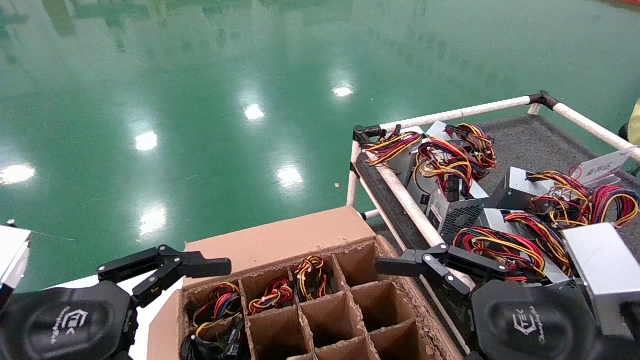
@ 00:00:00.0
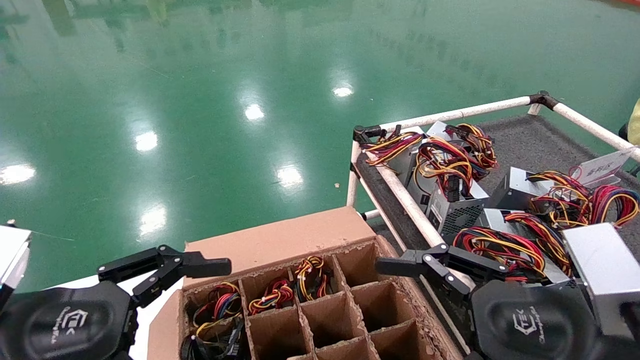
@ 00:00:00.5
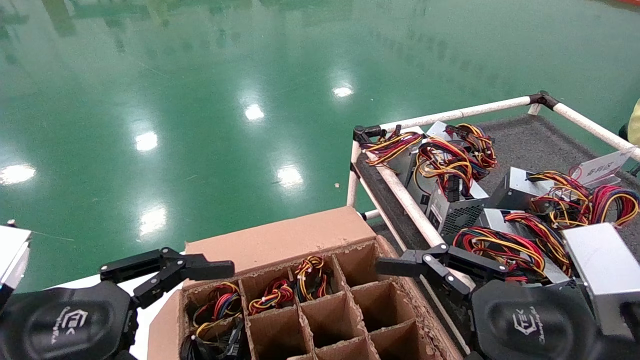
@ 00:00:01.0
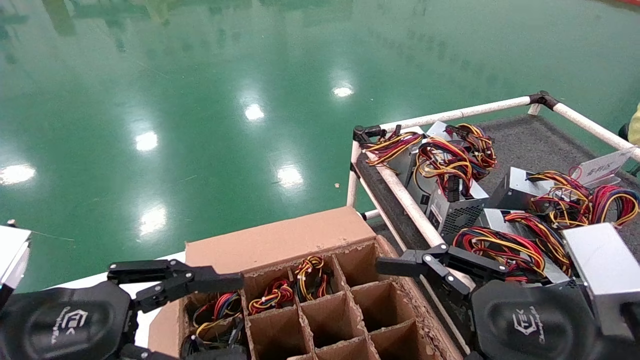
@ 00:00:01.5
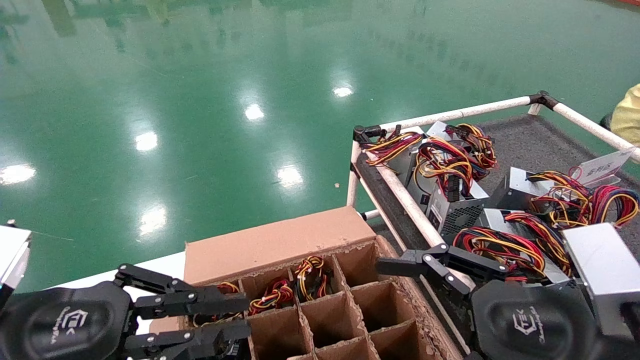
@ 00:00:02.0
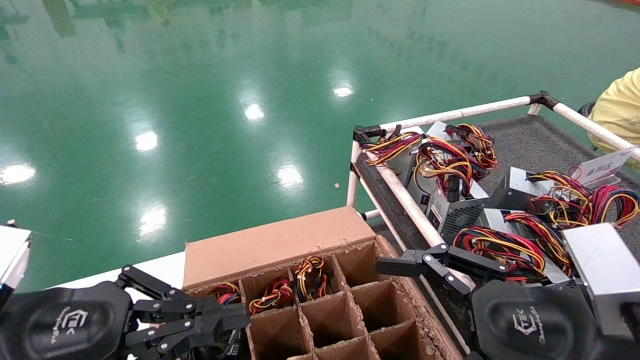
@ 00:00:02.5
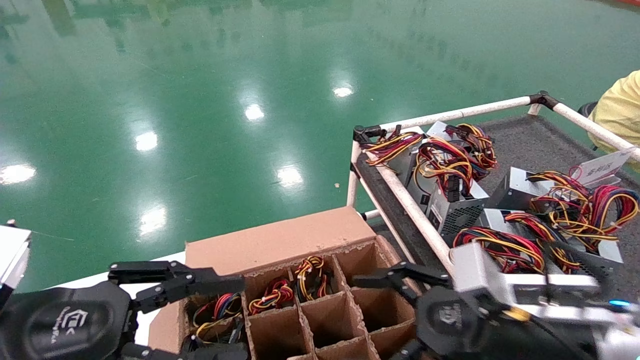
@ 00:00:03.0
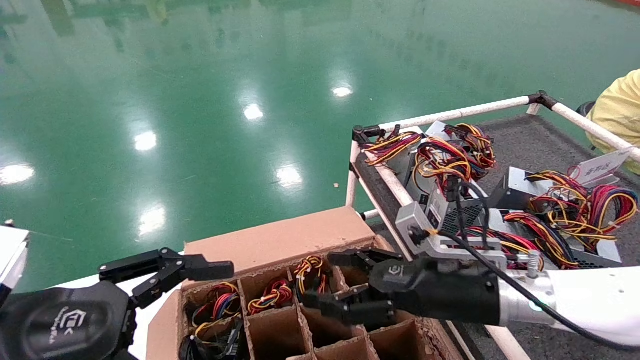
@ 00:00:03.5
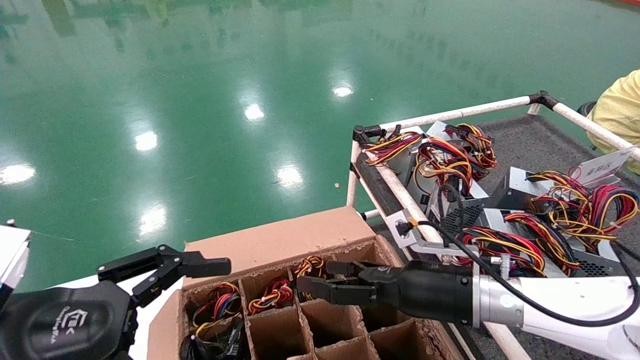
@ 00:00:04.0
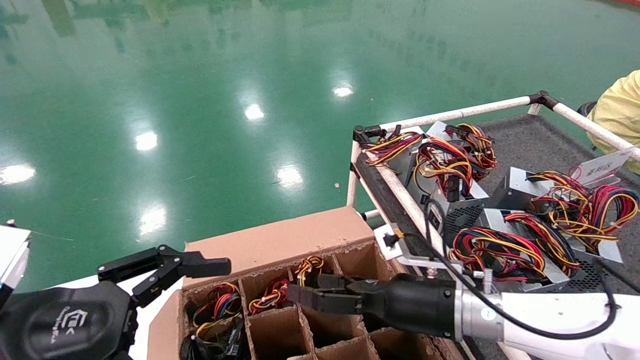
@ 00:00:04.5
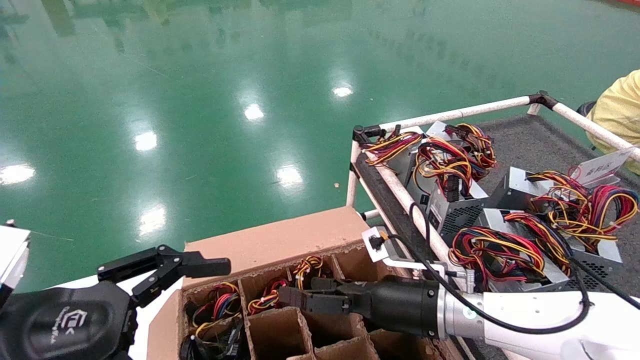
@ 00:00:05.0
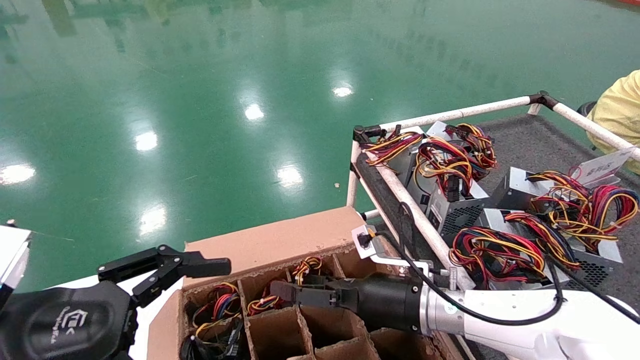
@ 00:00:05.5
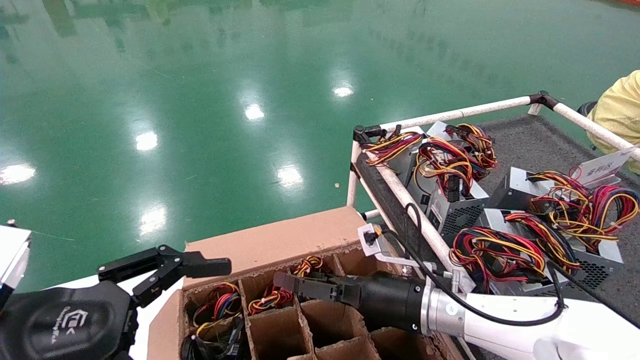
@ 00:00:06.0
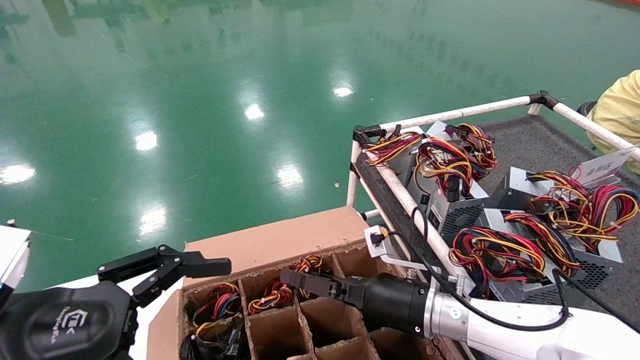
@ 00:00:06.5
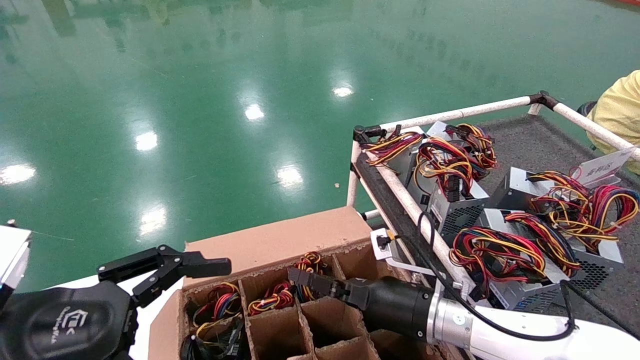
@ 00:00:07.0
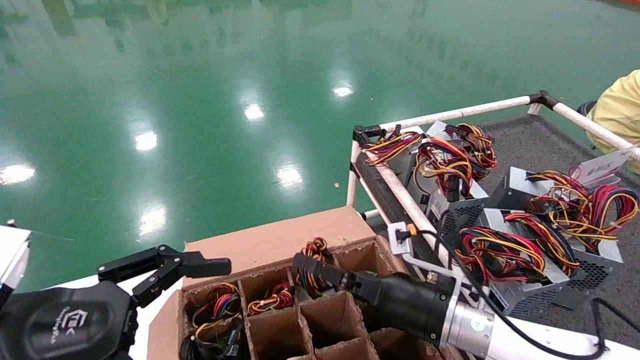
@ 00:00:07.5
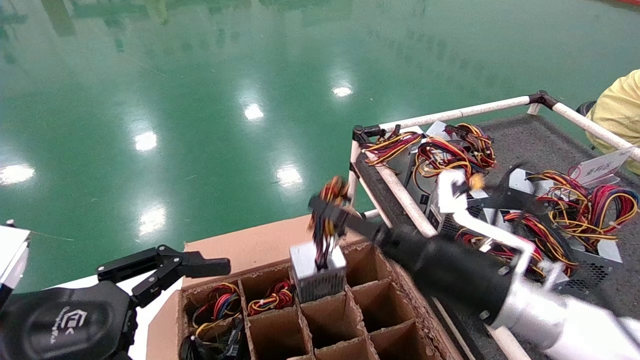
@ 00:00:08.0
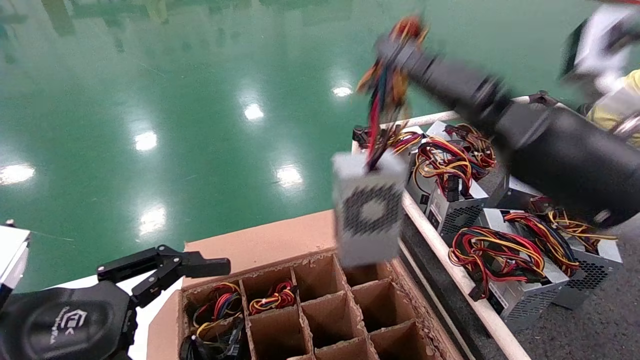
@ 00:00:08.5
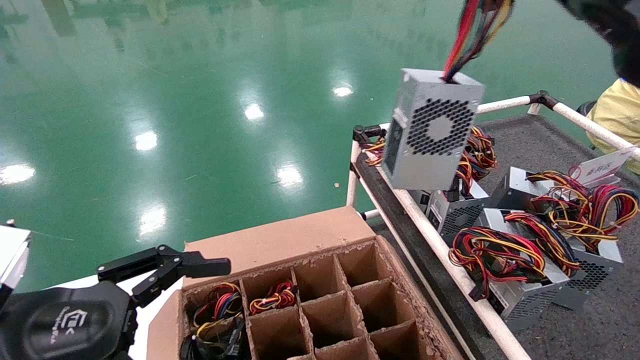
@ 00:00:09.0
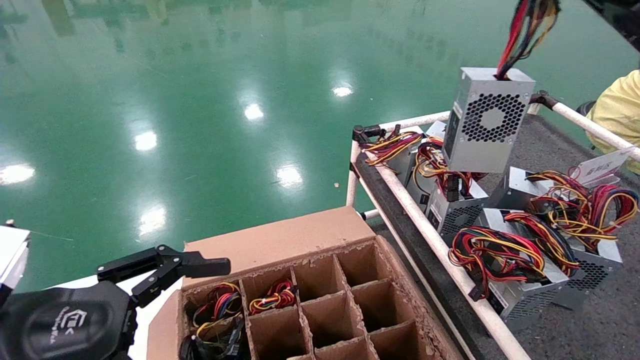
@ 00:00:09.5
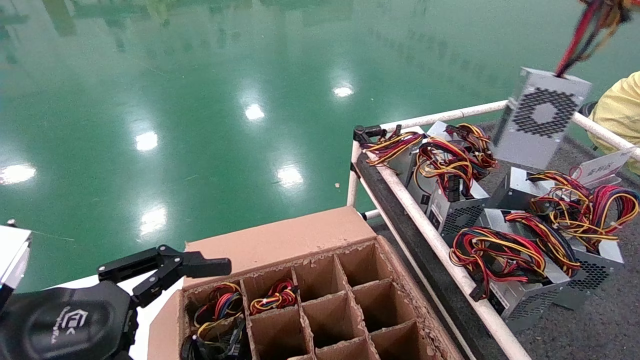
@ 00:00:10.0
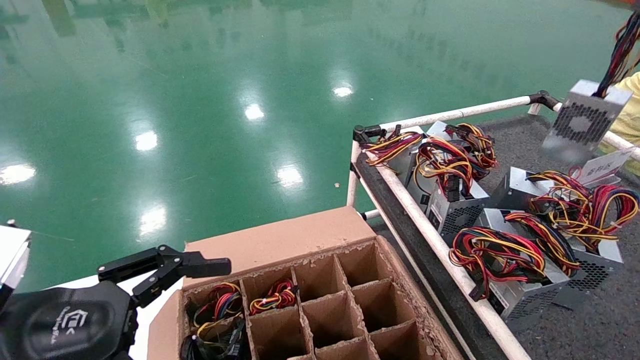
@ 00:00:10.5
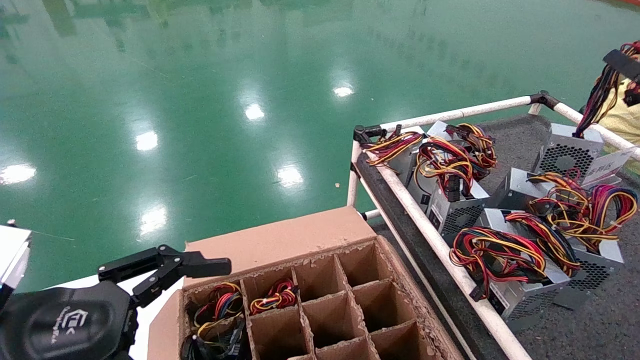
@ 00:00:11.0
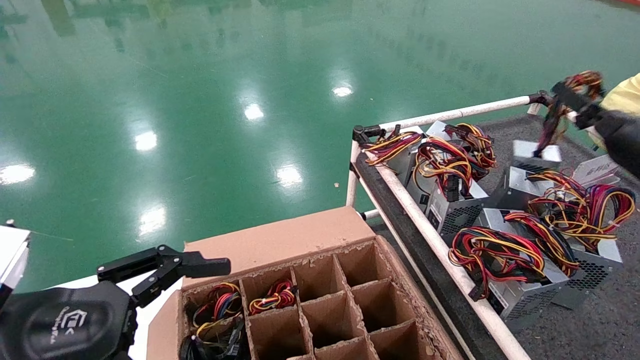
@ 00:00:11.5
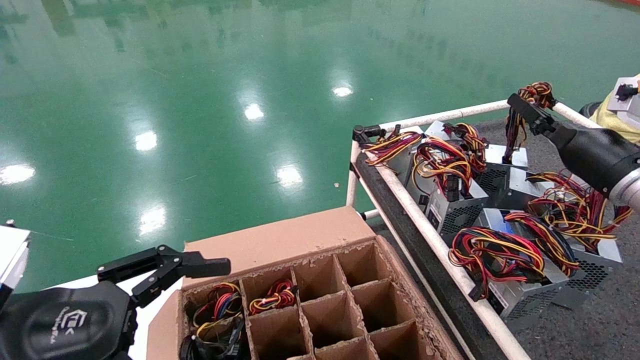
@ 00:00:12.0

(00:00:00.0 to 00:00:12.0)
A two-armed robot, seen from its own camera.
Step, 00:00:01.5 - 00:00:07.5: Grab and lift the power supply from the large box.
00:00:00.0 - 00:00:02.0: The left gripper closes up.
00:00:02.0 - 00:00:04.0: The right gripper goes approximately 15 cm forward, while the left gripper opens its fingers.
00:00:04.0 - 00:00:06.0: The right gripper shifts roughly 10 cm forward, to the left and downward.
00:00:06.0 - 00:00:08.0: The right gripper closes.
00:00:08.0 - 00:00:10.0: The right gripper heads upward, to the right and backward, covering about 35 cm.
00:00:10.0 - 00:00:12.0: The right gripper is displaced forward, to the right and downward by approximately 20 cm.

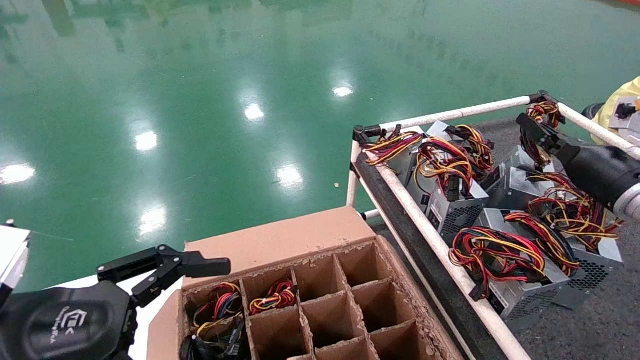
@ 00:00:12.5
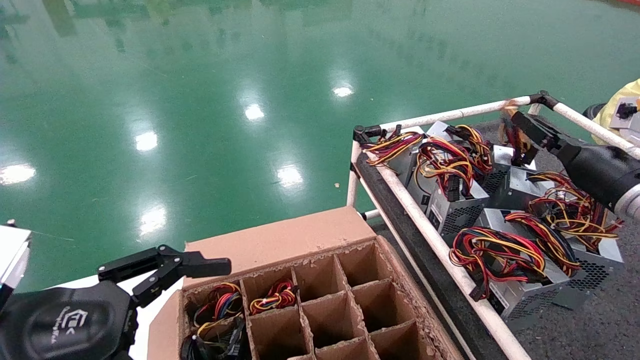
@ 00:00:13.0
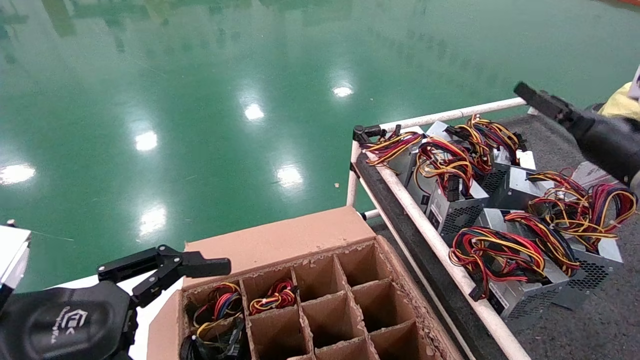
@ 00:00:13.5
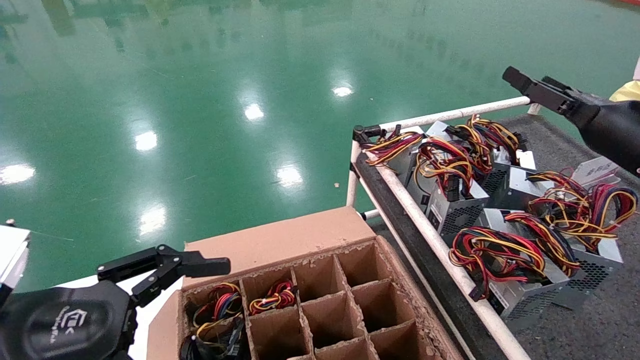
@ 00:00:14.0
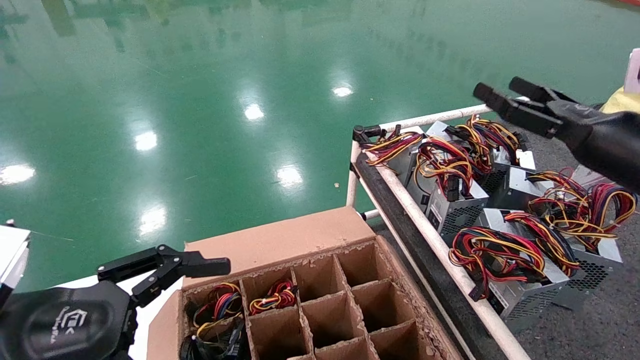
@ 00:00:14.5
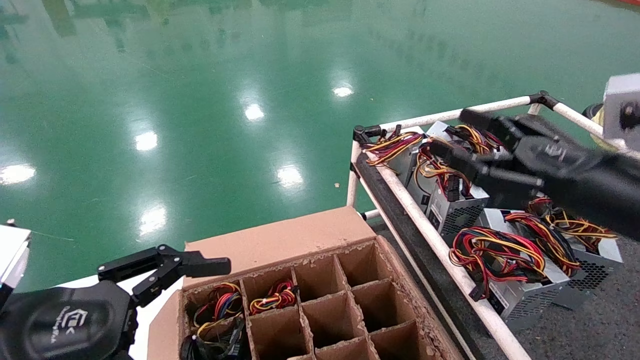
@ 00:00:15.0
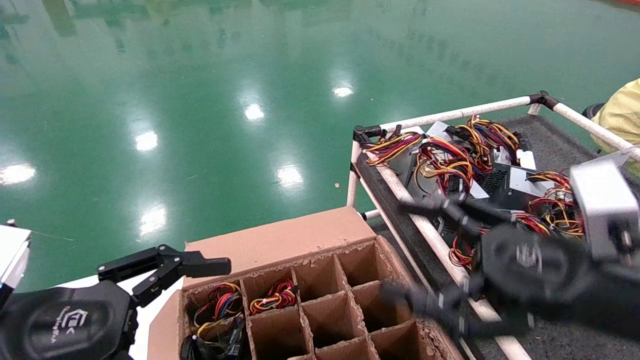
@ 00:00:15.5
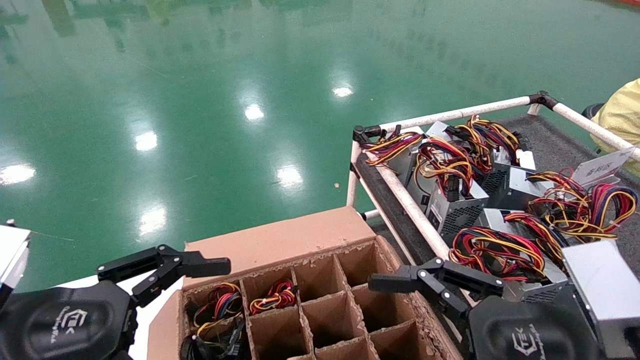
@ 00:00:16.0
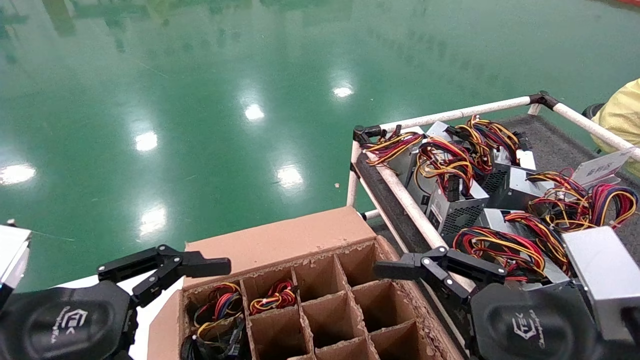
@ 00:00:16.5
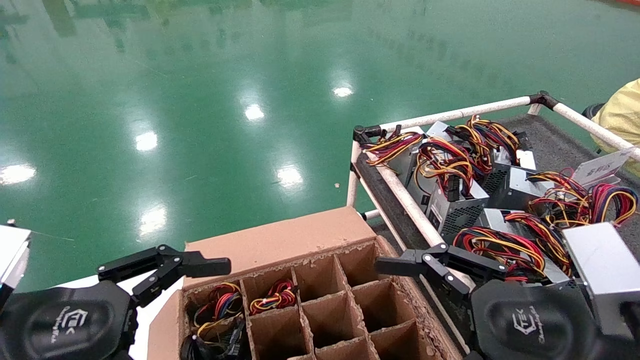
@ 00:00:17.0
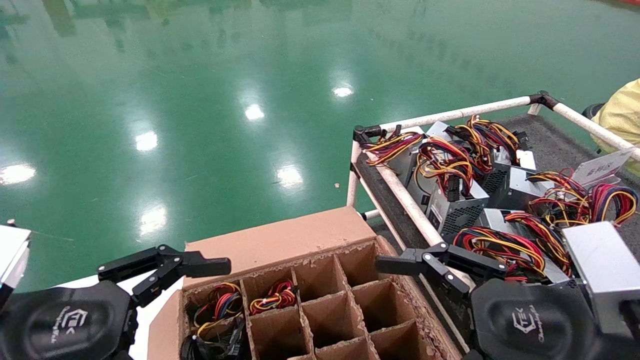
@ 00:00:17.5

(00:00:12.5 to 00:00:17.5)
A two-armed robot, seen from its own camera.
00:00:12.5 - 00:00:15.0: The right gripper is displaced backward by about 5 cm, and opens.
00:00:15.0 - 00:00:17.5: The right gripper travels backward, to the left and downward by some 25 cm.
